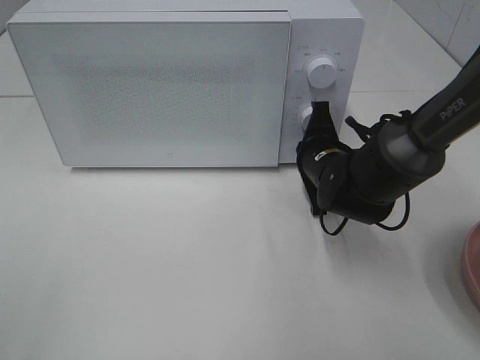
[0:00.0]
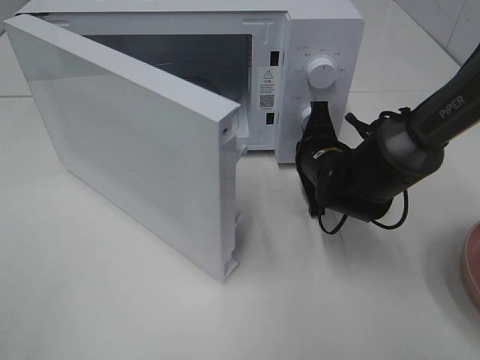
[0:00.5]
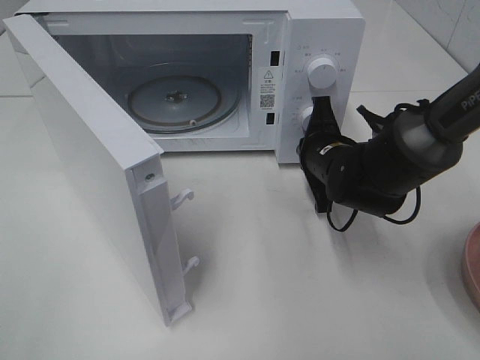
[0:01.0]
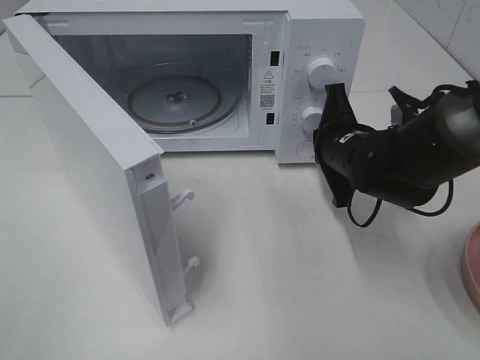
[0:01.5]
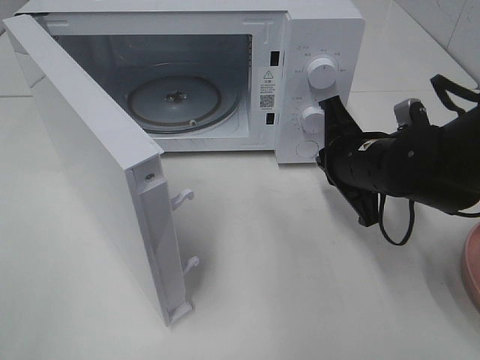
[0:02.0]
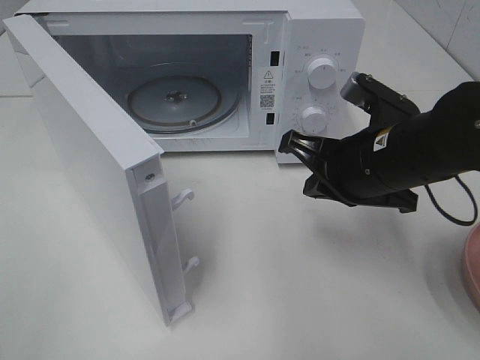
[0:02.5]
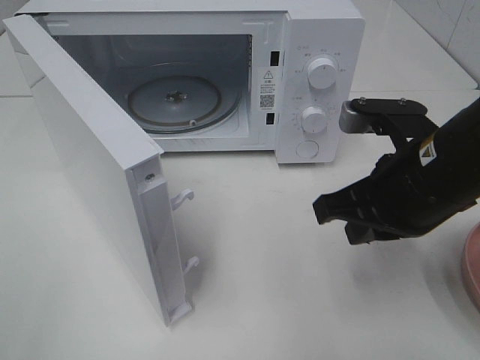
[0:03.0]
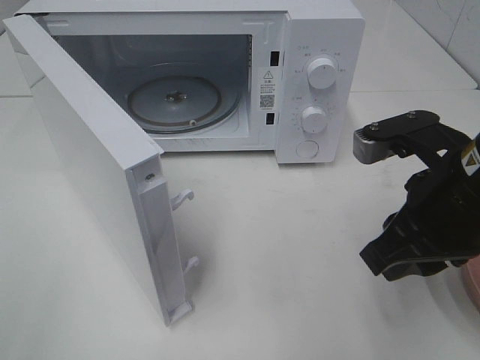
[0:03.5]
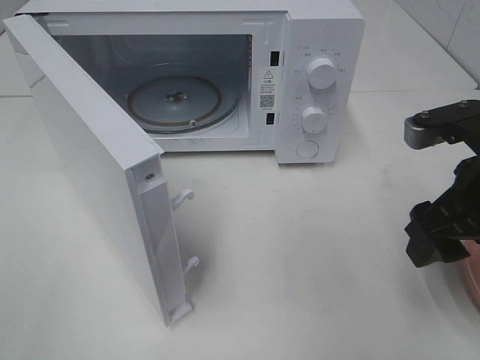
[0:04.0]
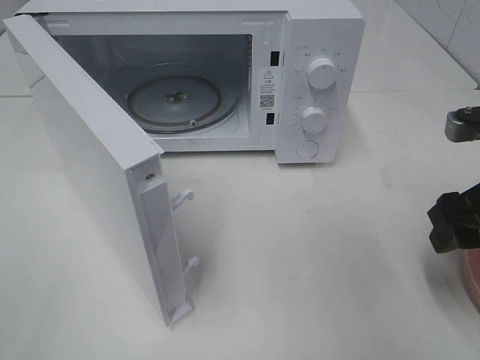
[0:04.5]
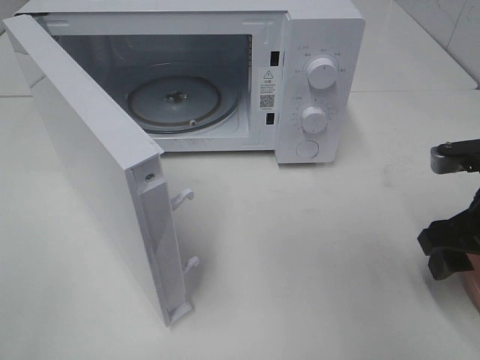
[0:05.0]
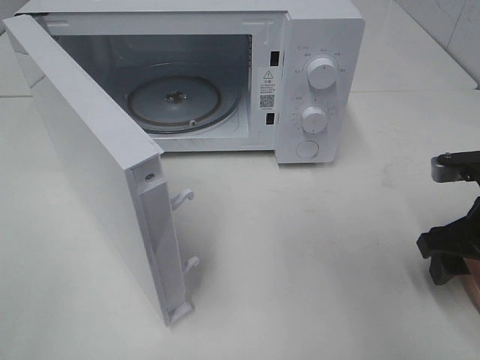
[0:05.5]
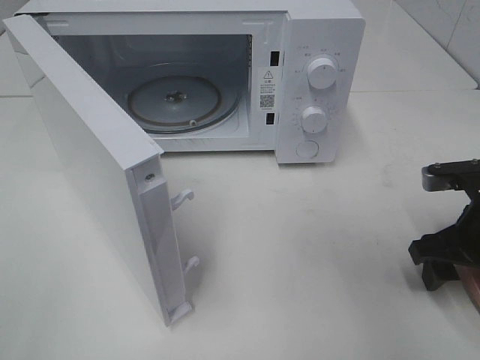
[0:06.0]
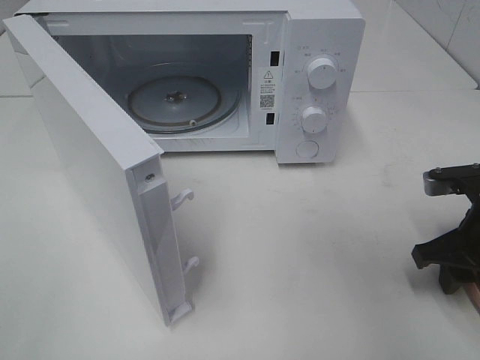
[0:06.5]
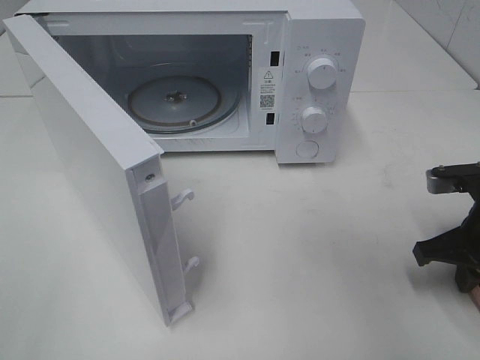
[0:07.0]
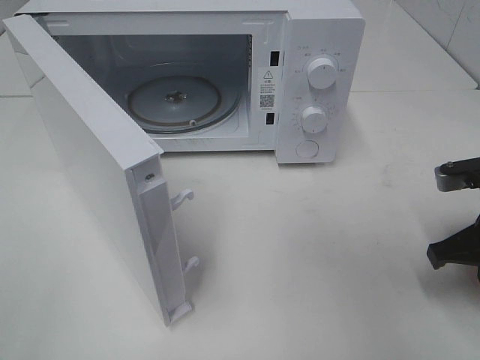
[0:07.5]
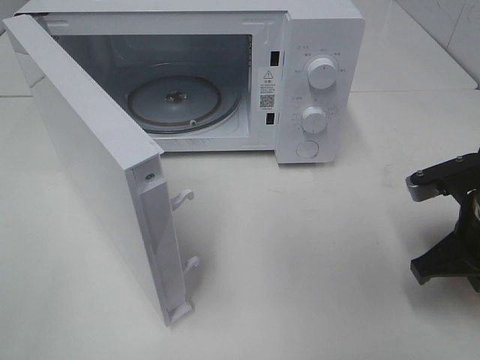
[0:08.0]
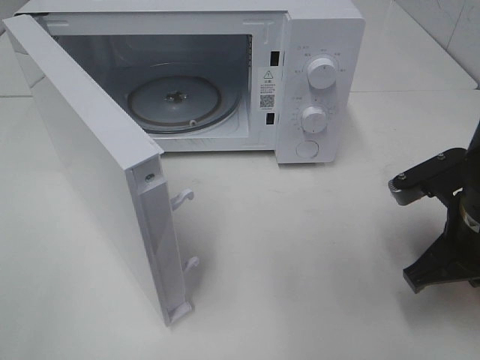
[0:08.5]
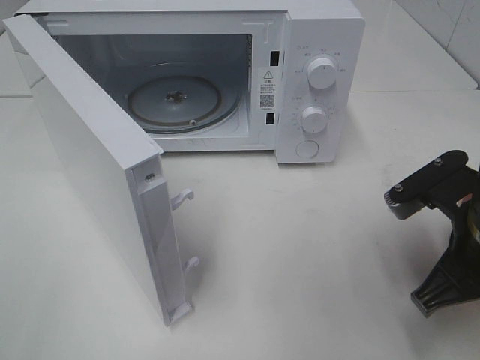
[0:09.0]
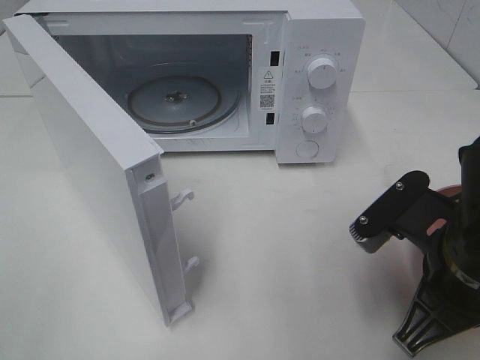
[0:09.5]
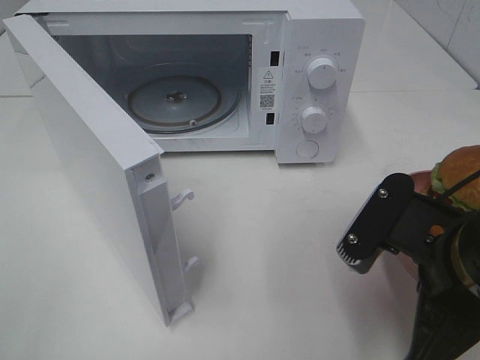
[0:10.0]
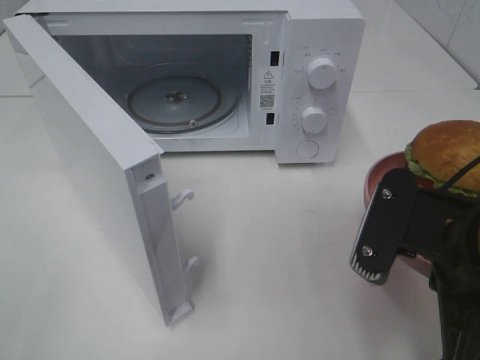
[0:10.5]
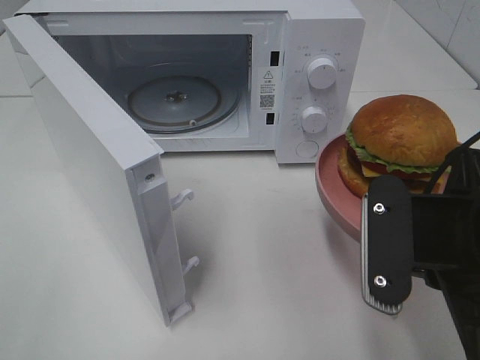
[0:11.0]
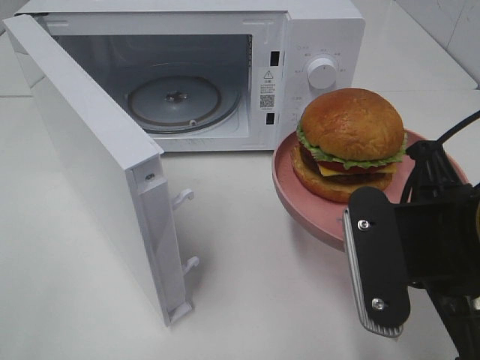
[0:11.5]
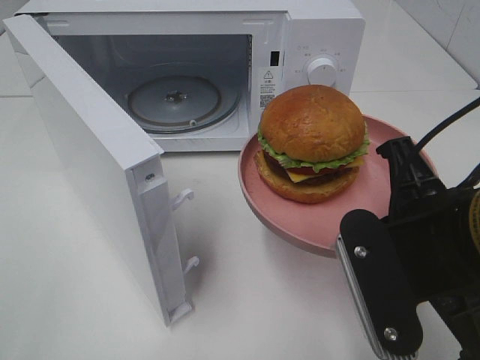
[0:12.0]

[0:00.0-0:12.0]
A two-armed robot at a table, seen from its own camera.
Task of the whole recording: Heat the burger.
Step, 0:02.0 to 0:06.5: Right hand: grab the plate with the hamburger.
0:00.0 to 0:02.0: The right gripper heads backward and upward, covering about 10 cm.
0:02.0 to 0:04.0: The right gripper moves backward, upward and to the right, approximately 15 cm, and opens its fingers.
0:04.0 to 0:06.0: The right gripper travels downward by roughly 10 cm.
0:06.0 to 0:08.0: The right gripper closes its fingers.
0:08.0 to 0:10.0: The right gripper moves backward and to the left, roughly 10 cm.

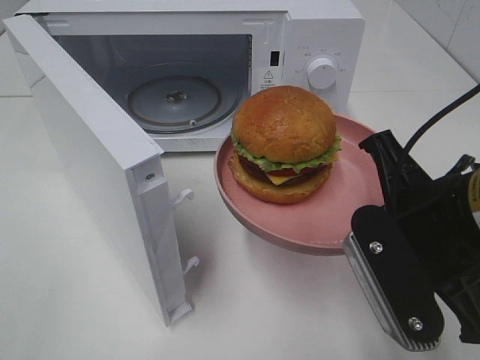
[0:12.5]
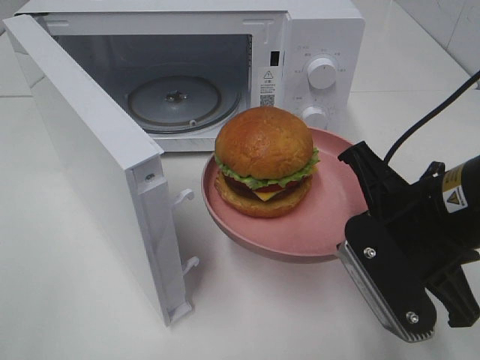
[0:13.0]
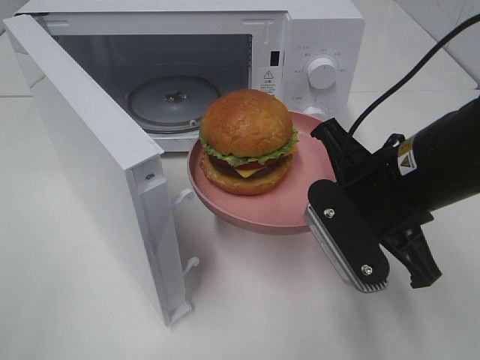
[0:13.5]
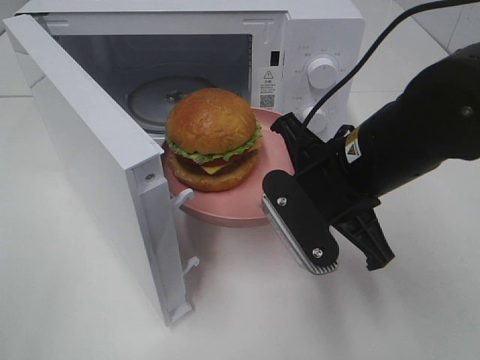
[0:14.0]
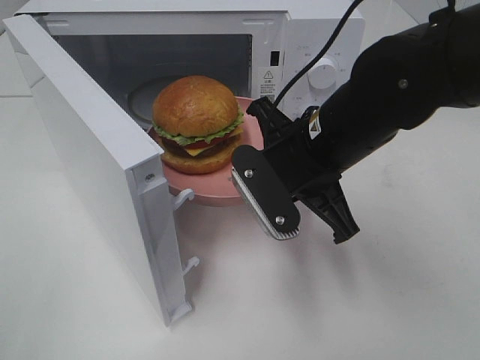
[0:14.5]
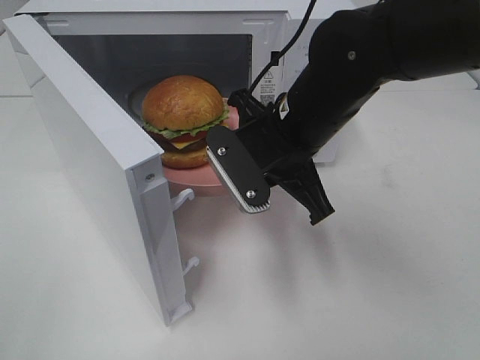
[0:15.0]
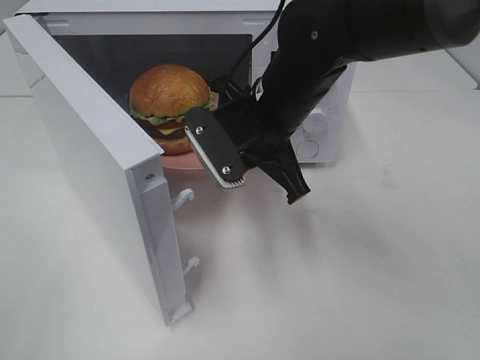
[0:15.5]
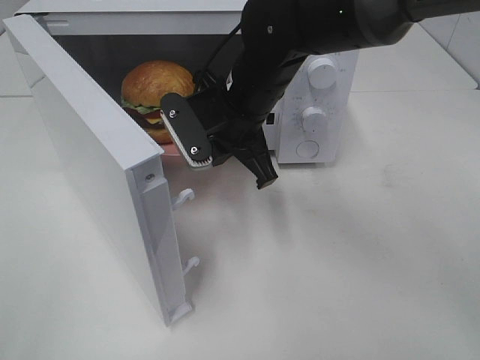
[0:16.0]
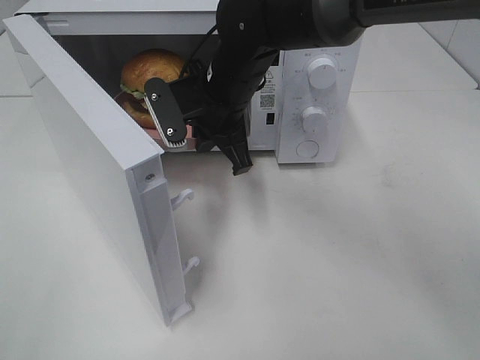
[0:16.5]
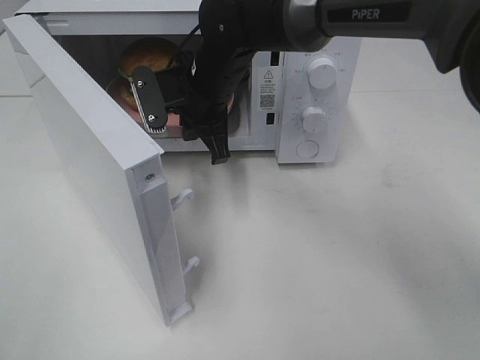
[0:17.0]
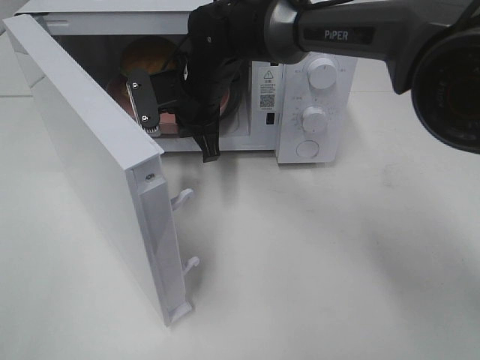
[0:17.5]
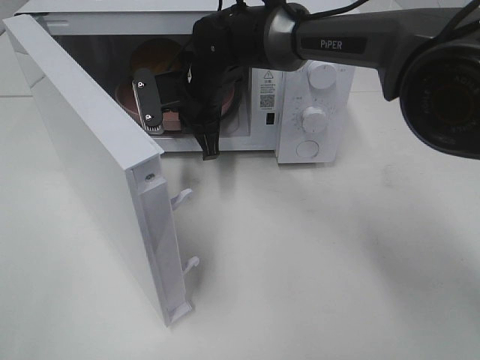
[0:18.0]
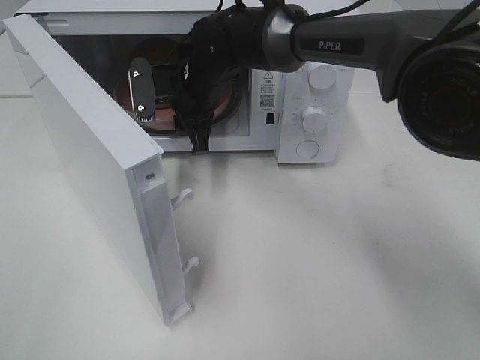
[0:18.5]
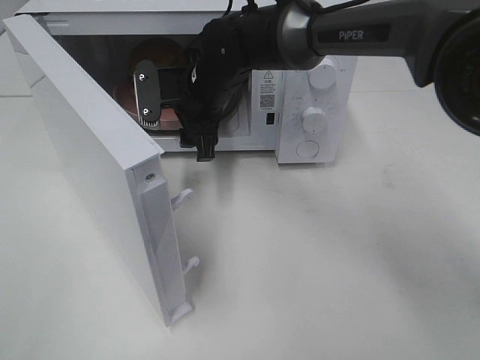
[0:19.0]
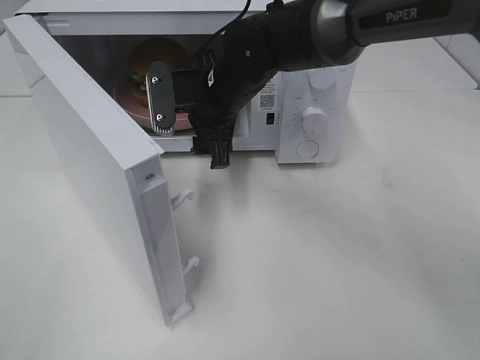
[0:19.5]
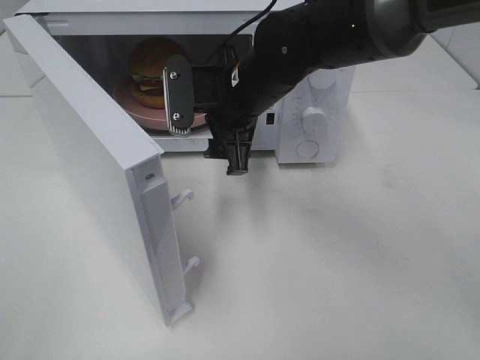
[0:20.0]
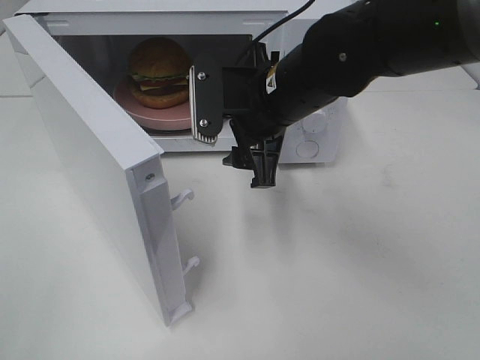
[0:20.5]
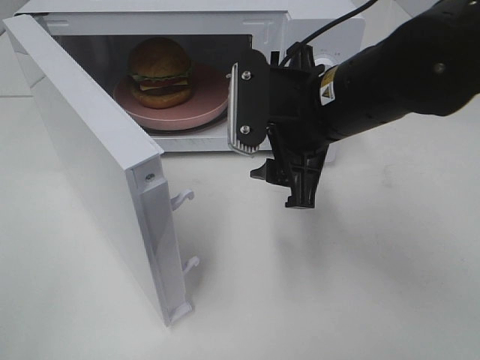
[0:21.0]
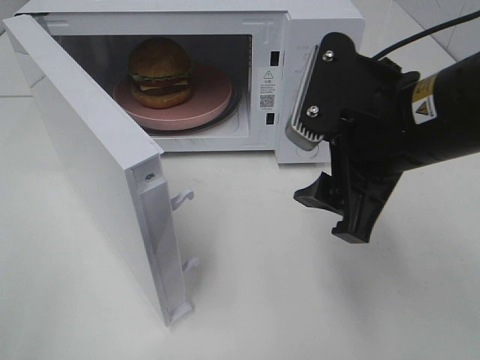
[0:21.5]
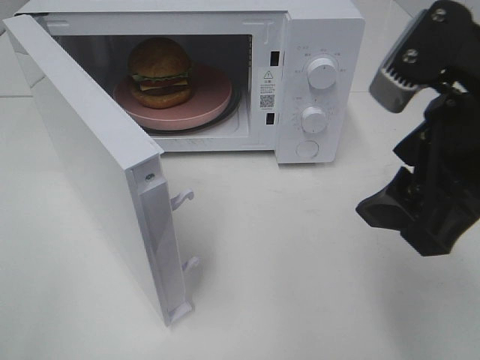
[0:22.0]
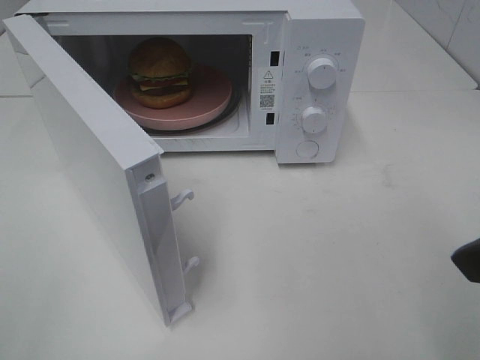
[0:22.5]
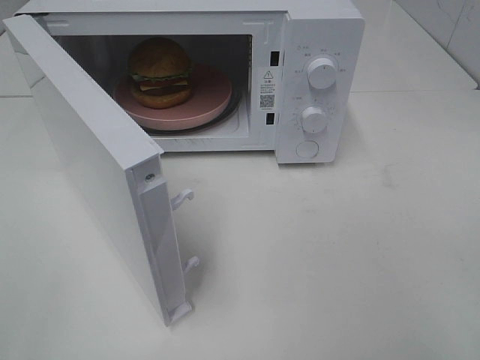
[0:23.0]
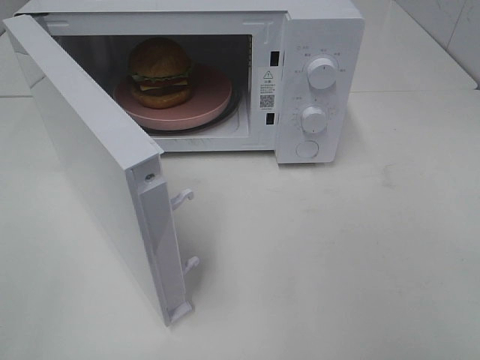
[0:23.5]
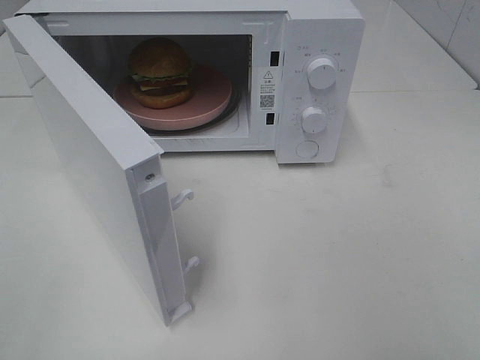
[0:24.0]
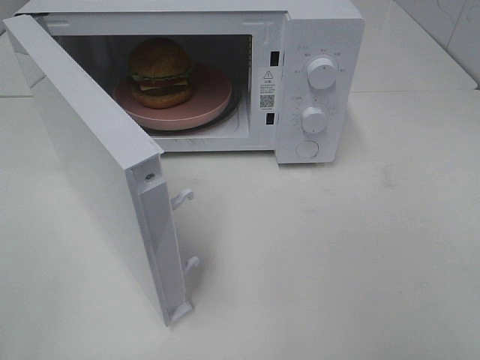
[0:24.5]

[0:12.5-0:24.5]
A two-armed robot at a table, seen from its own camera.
Task of the whole recording: Heat the burger.
Step, 0:12.5 to 0:18.5: Right hand: place the plate in the microwave.
0:12.5 to 0:14.5: The right gripper travels forward and to the left by approximately 15 cm.
0:14.5 to 0:16.5: The right gripper goes approximately 15 cm forward and to the left.
0:16.5 to 0:18.5: The right gripper shifts approximately 5 cm forward, and opens its fingers.
0:18.5 to 0:20.5: The right gripper is displaced backward and to the right by some 15 cm.
0:20.5 to 0:22.5: The right gripper shifts roughly 25 cm backward, to the right and upward.
0:22.5 to 0:24.5: The right gripper shifts approximately 15 cm backward and to the right.

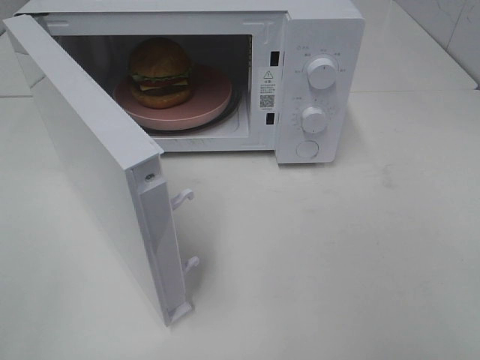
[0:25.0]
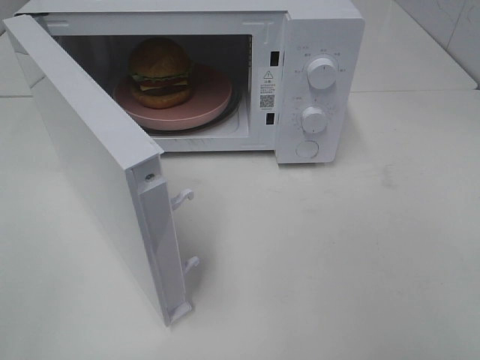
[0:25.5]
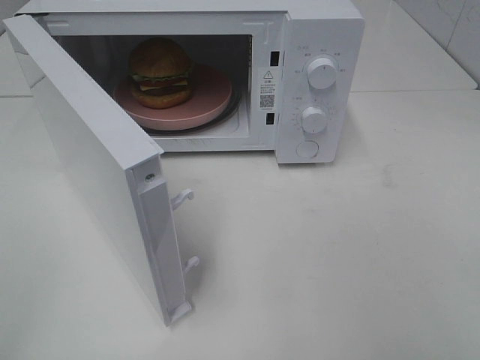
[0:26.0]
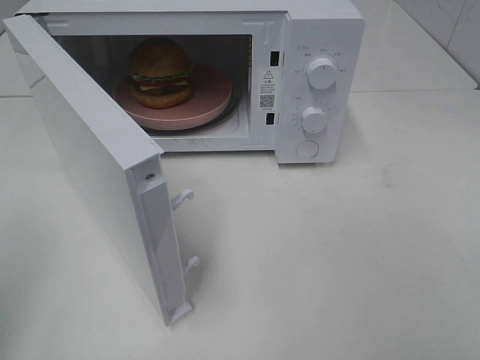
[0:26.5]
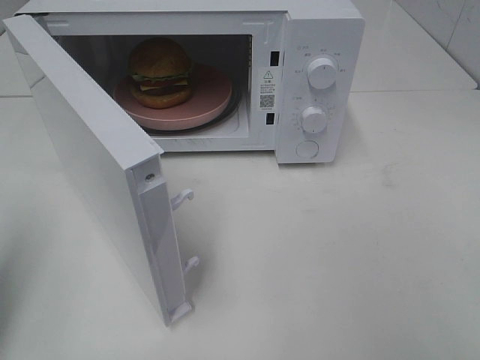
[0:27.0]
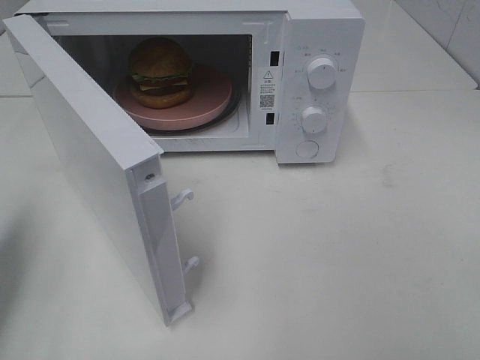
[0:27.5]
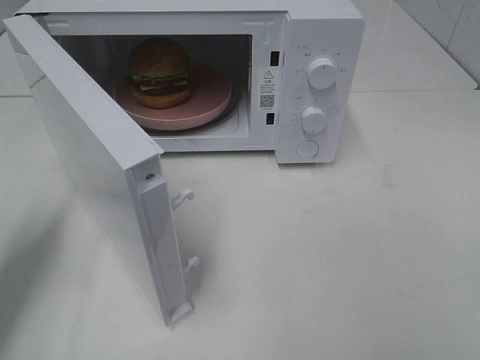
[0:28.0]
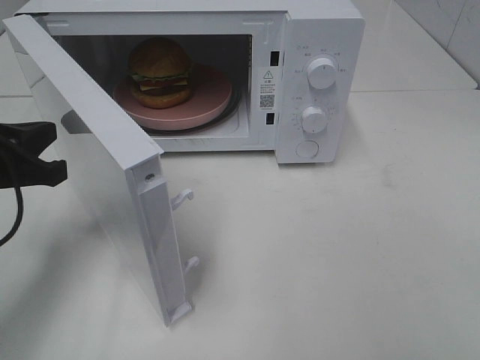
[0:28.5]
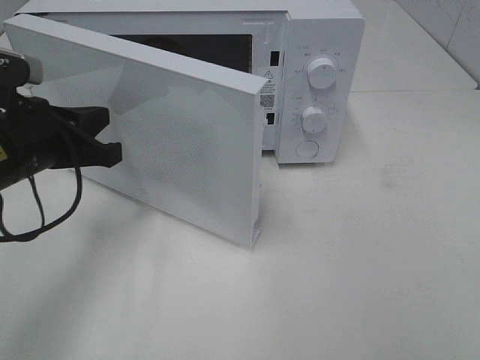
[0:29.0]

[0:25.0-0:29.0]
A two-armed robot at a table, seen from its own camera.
Task of the whole recording: Heat the burger.
0:25.0 to 0:27.0: The left gripper travels forward by about 15 cm, and closes up.
0:27.0 to 0:29.0: The left gripper shifts some 20 cm forward, to the right and downward.
